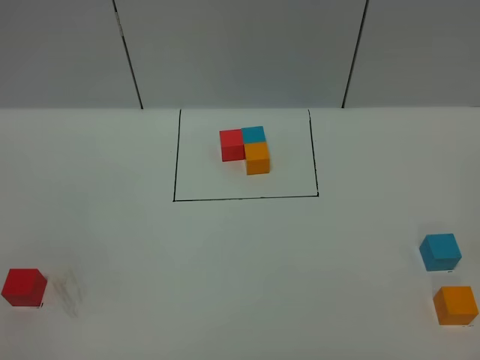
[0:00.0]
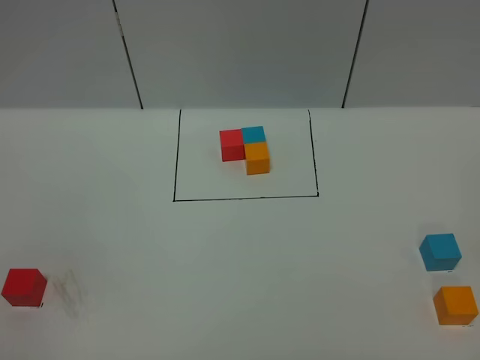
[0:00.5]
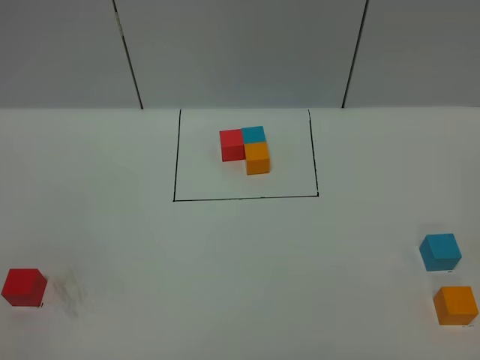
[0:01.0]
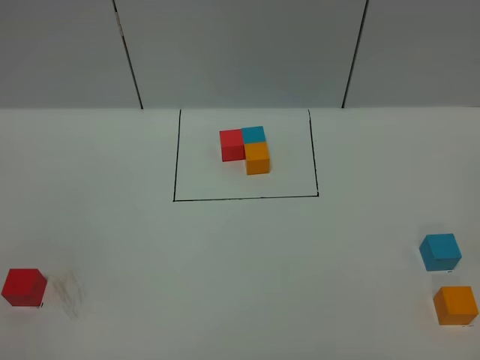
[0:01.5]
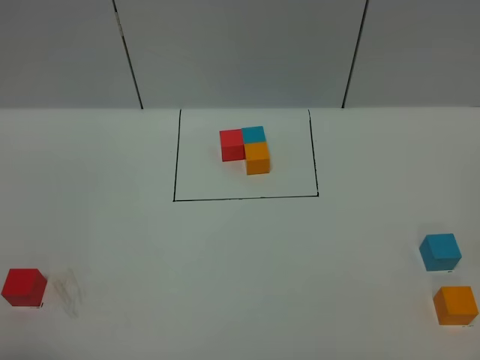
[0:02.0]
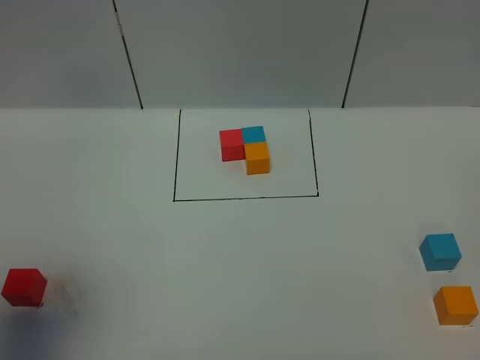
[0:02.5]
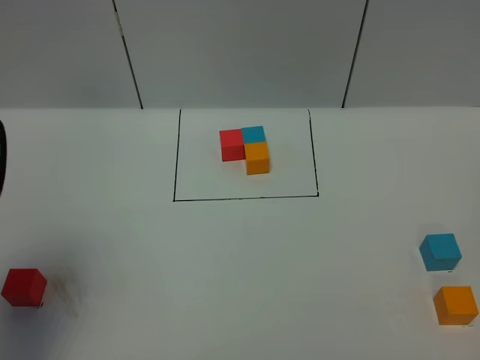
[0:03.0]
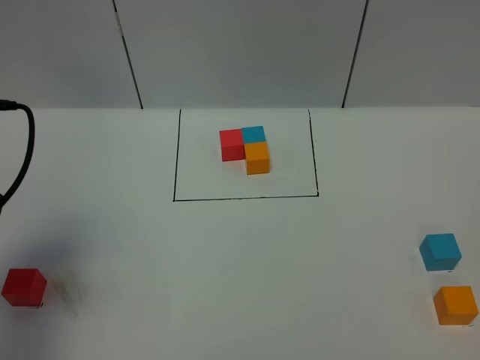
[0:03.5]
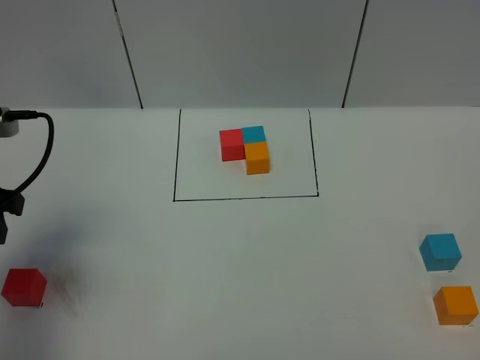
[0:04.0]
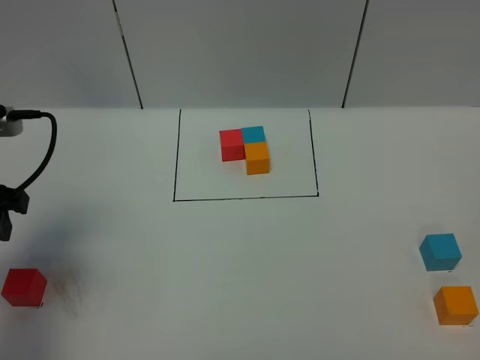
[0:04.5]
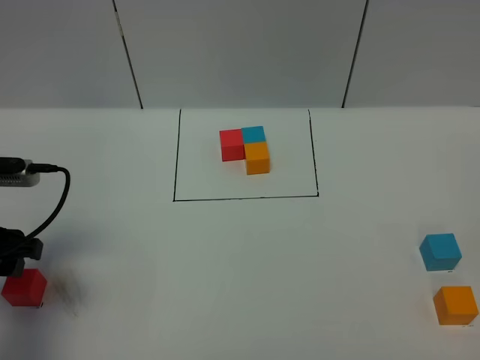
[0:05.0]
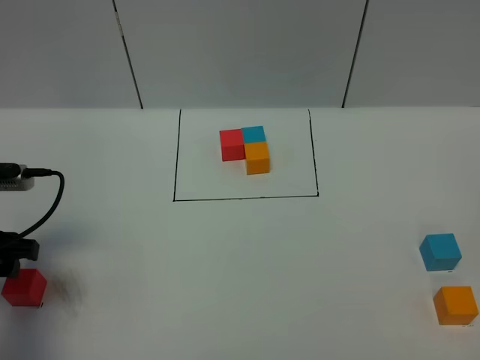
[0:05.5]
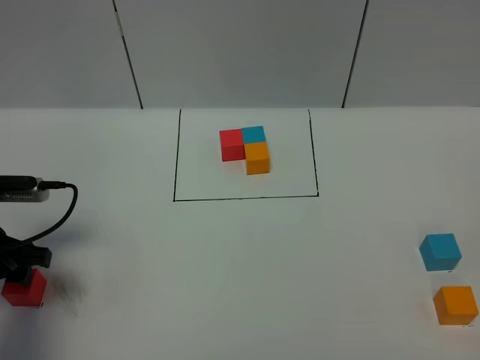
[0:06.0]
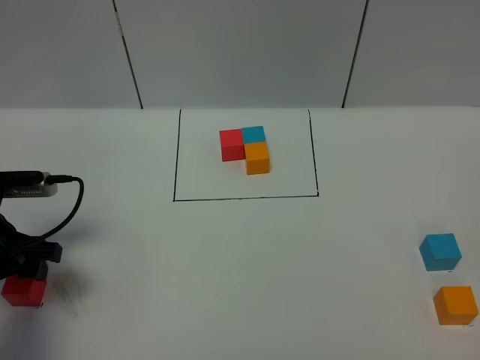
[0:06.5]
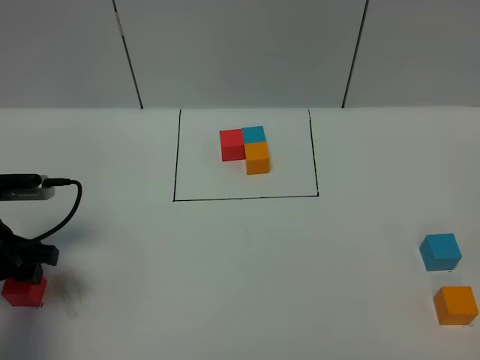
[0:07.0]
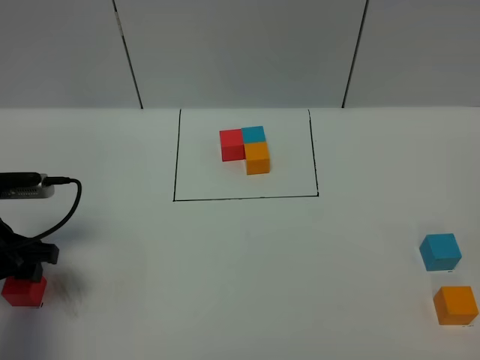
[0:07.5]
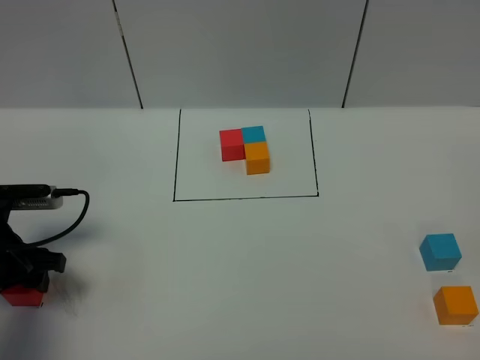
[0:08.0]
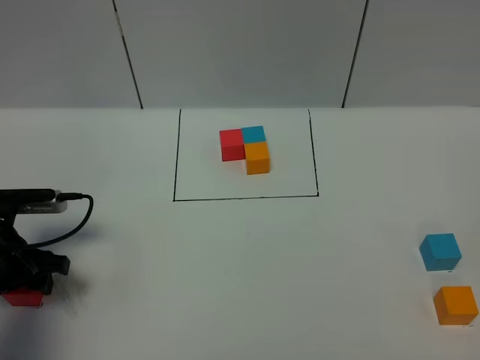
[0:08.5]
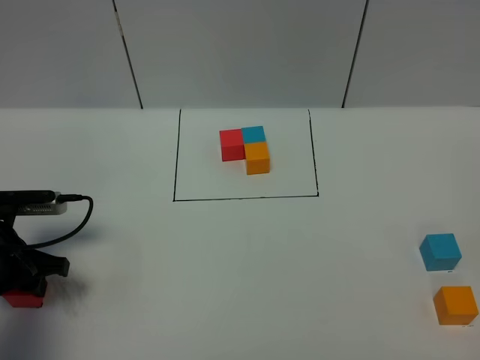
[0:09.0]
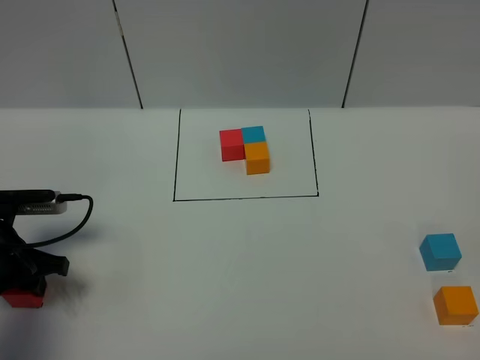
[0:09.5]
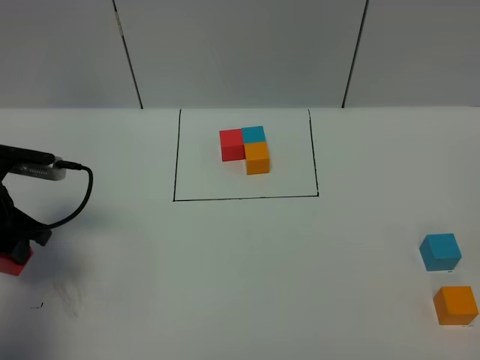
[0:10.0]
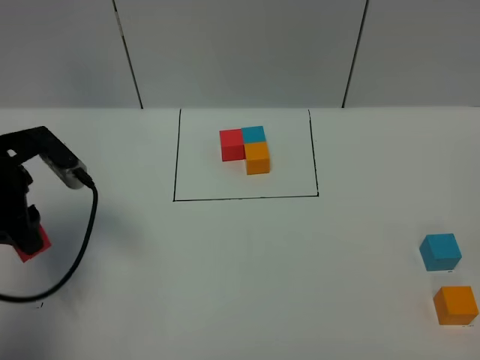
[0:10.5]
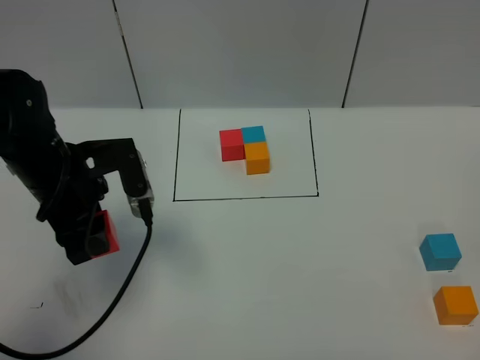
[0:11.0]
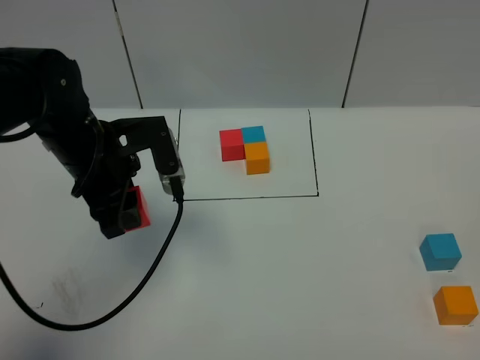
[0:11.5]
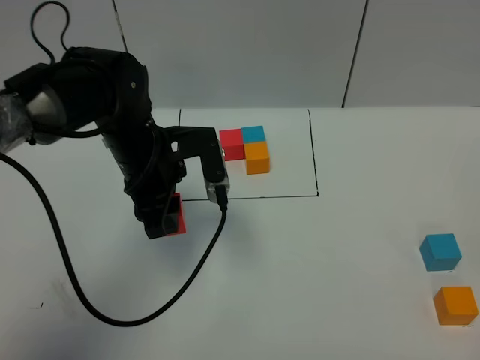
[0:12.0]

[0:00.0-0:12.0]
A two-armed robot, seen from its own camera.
Task of the whole recording: According to the building block template in front, assemble the scattered blocks together.
0:02.0 to 0:04.0: The left gripper goes approximately 25 cm forward.
0:04.0 to 0:06.0: The left gripper is displaced downward by about 10 cm.
0:06.0 to 0:08.0: There are only small adjustments of the grippers.
0:08.0 to 0:10.0: The left gripper moves upward, about 5 cm, and closes up.
0:10.0 to 0:12.0: The left gripper moves to the right, about 20 cm.

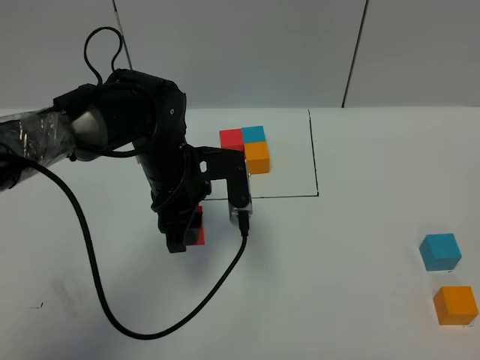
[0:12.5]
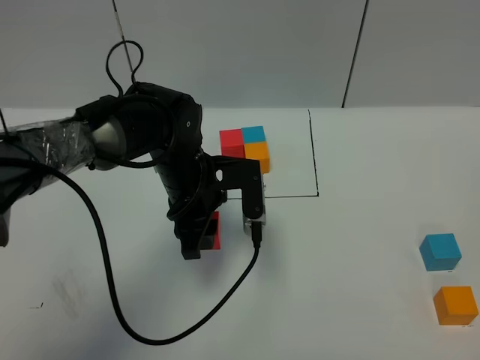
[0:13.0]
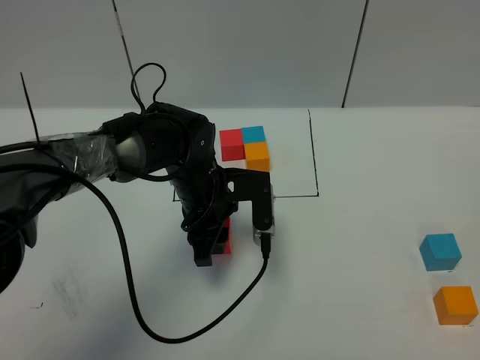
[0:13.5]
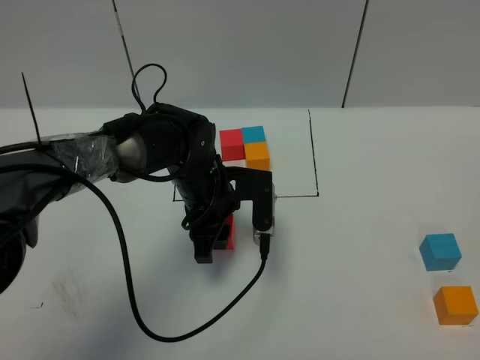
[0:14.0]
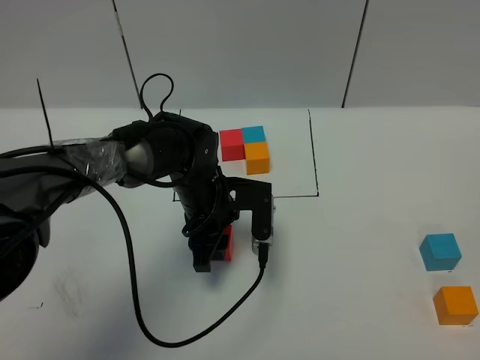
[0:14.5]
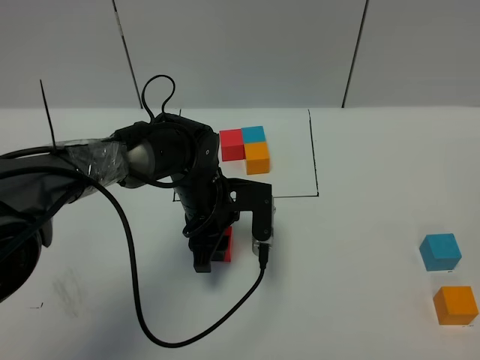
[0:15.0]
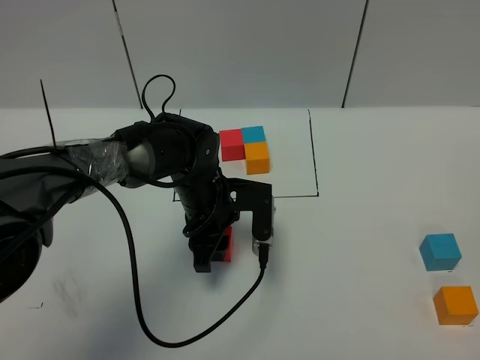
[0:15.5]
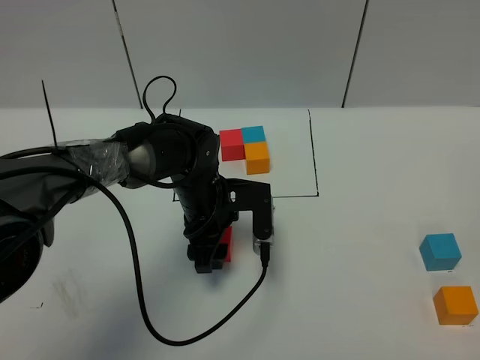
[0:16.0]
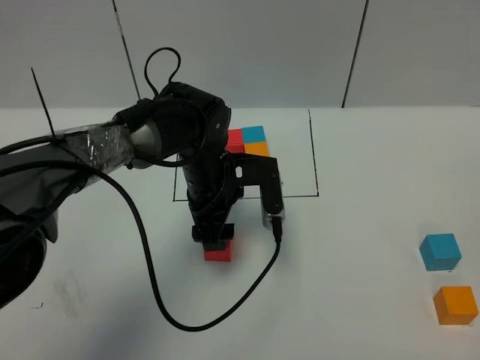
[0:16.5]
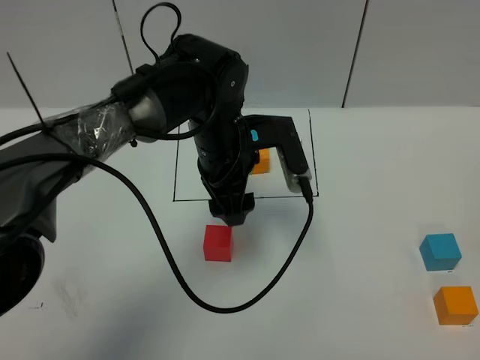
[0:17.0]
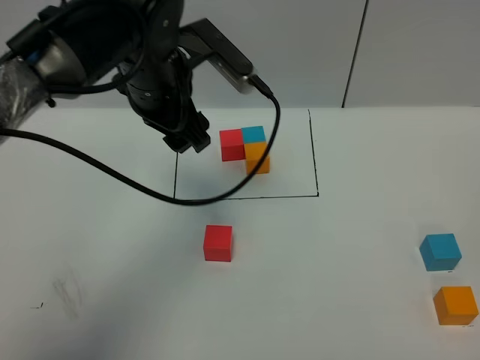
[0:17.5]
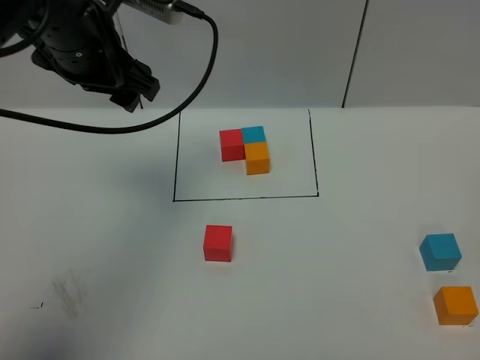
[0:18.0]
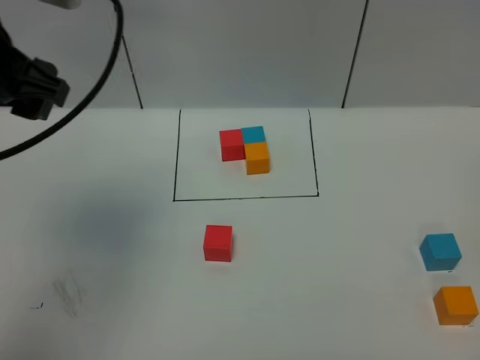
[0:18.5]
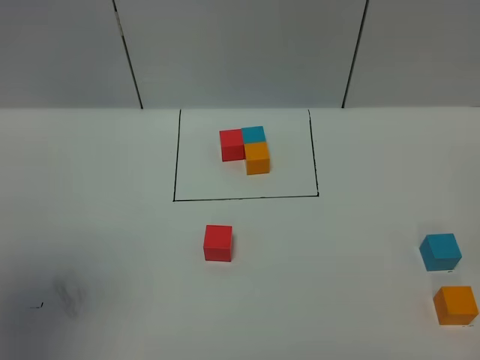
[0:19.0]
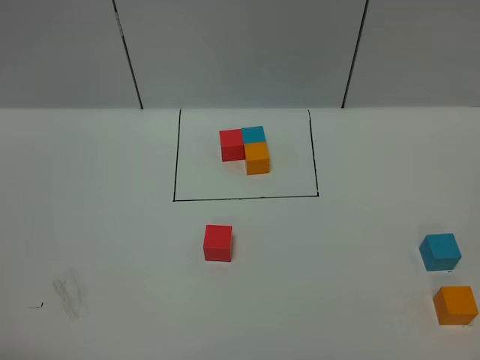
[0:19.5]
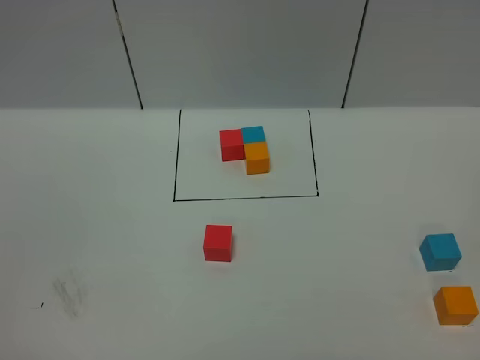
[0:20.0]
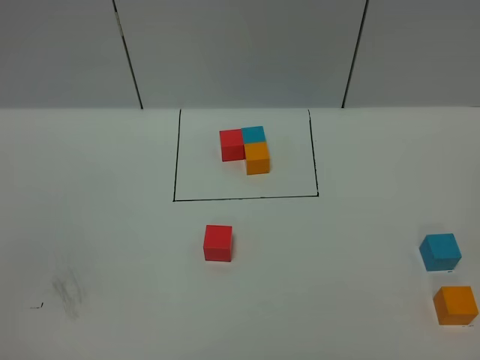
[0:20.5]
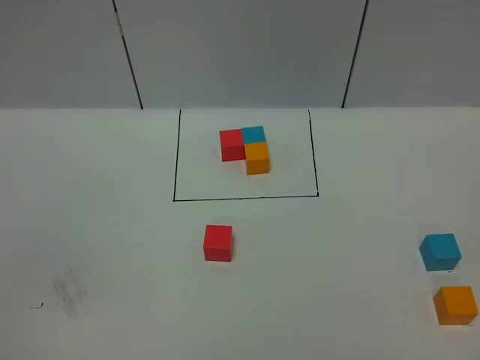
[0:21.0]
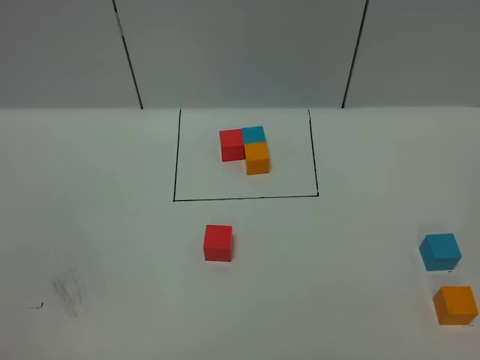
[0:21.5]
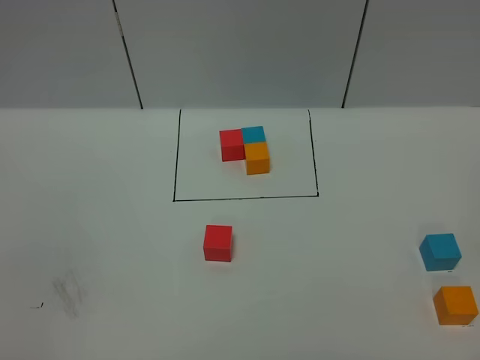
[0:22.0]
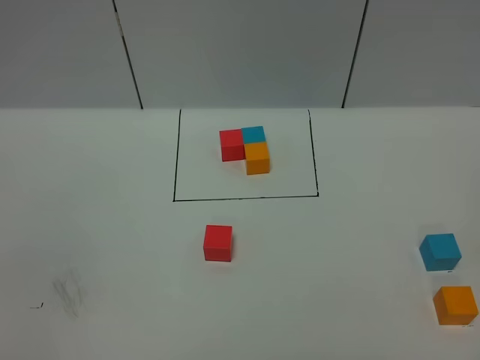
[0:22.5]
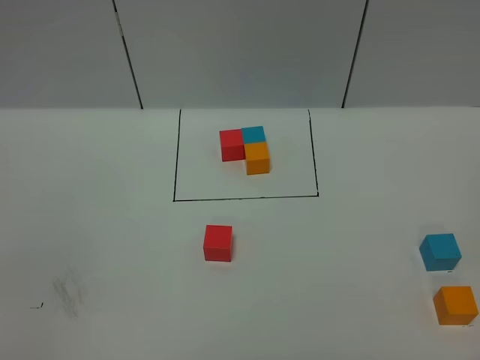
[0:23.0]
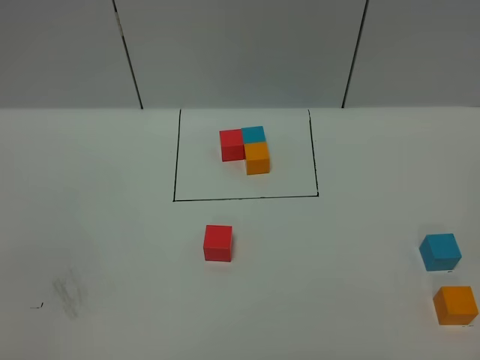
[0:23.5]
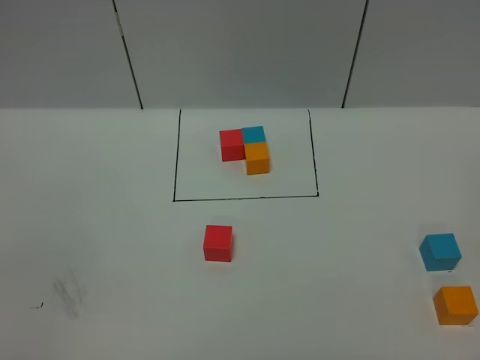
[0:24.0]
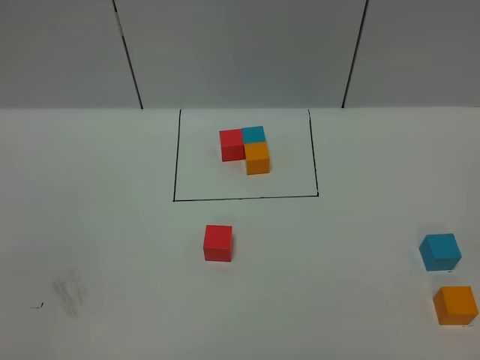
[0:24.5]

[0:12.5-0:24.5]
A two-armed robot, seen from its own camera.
Task of the whole recording: According to the building block template in front, assemble the scattered blocks together.
Step, 0:12.5 to 0:16.5: Put the red cube in the center of the table.
0:12.5 to 0:14.5: The left gripper goes approximately 5 cm downward.
0:14.5 to 0:16.5: The left gripper opens.
0:16.5 to 0:18.5: The left gripper shifts some 30 cm upward and to the left.
0:18.5 to 0:20.5: The left gripper moves backward, some 30 cm.
0:22.5 to 0:24.5: Both grippers stay put.

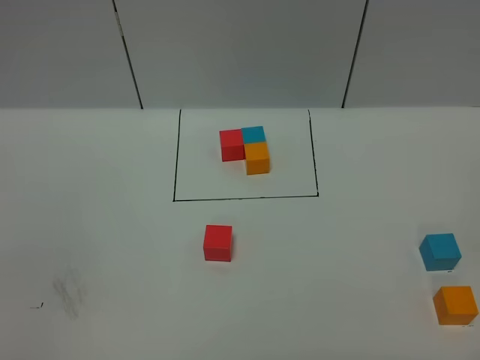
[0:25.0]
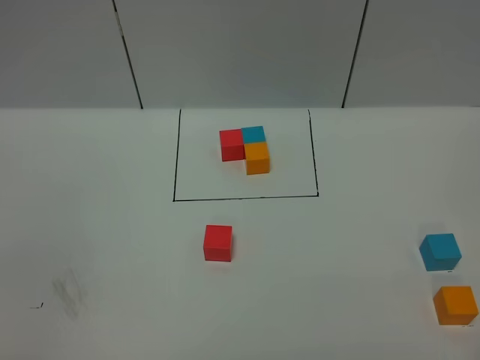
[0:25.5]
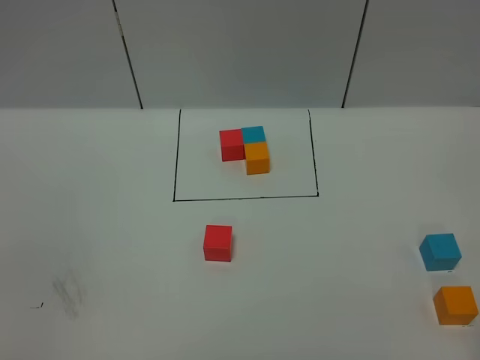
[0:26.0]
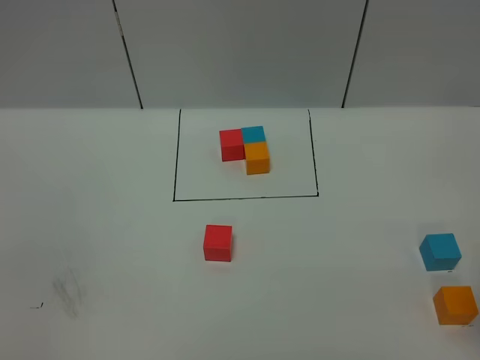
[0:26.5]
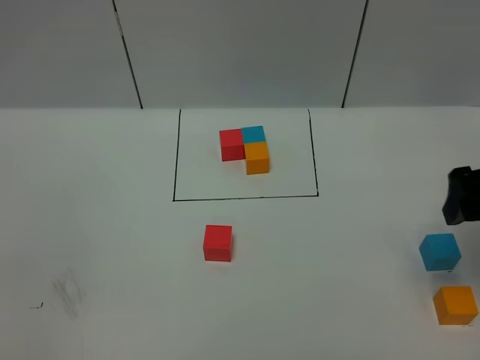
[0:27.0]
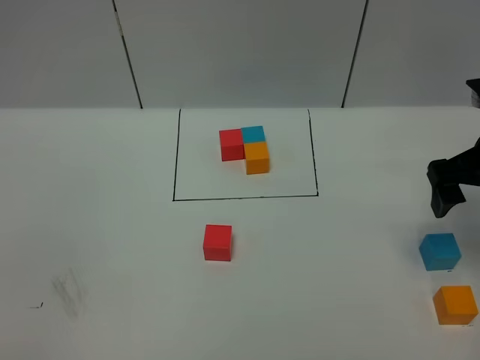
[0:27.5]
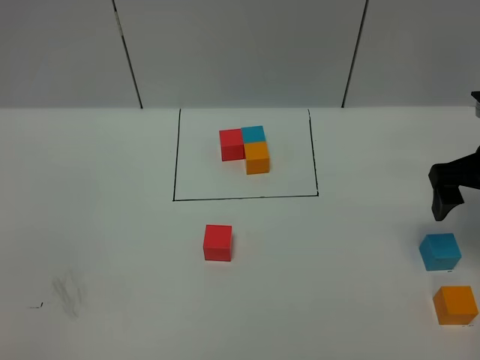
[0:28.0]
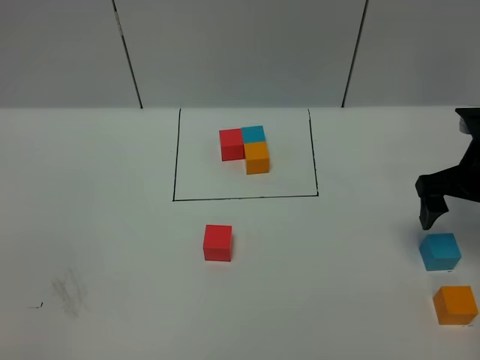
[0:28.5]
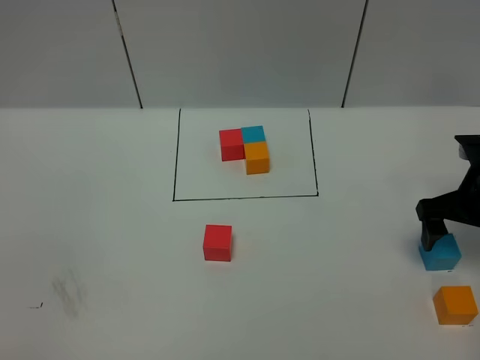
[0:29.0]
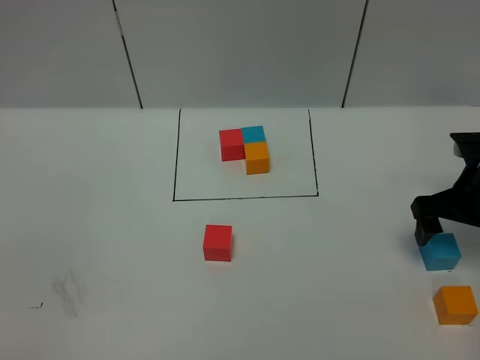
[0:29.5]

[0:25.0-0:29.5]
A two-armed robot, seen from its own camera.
Task of the whole recording: According to the building block template in front, assemble the scattered blocks together.
0:25.0 to 0:27.0: The right gripper travels forward by roughly 25 cm.
0:27.0 to 0:29.5: The right gripper moves downward and forward, about 15 cm.
